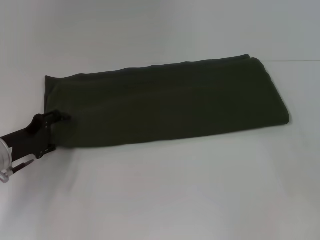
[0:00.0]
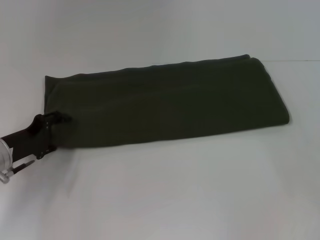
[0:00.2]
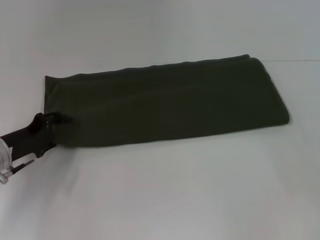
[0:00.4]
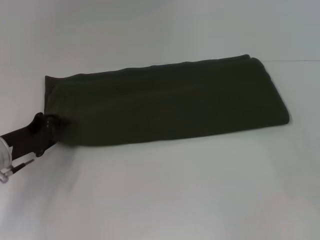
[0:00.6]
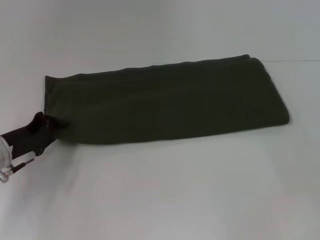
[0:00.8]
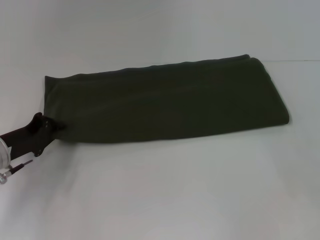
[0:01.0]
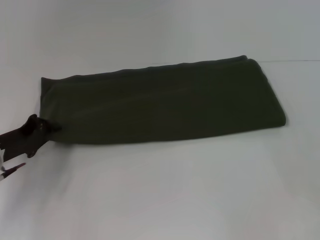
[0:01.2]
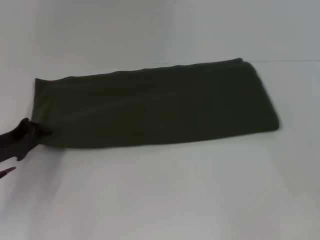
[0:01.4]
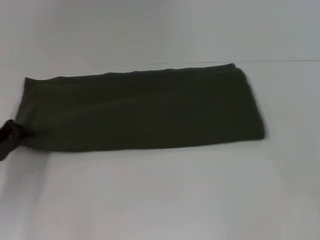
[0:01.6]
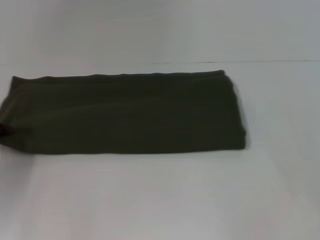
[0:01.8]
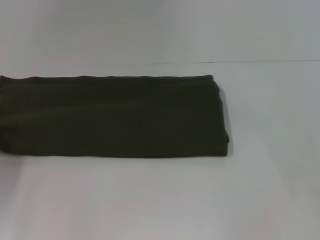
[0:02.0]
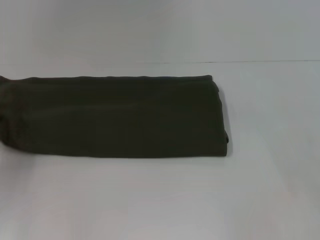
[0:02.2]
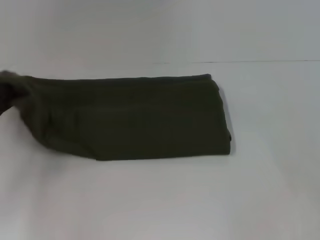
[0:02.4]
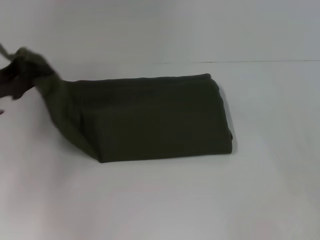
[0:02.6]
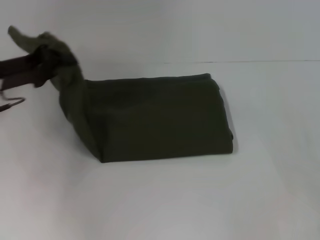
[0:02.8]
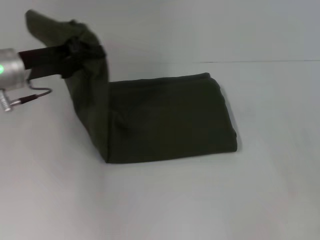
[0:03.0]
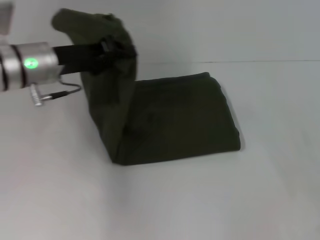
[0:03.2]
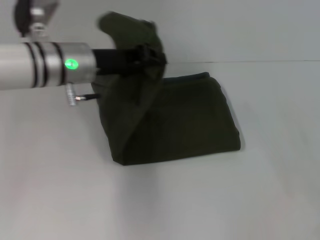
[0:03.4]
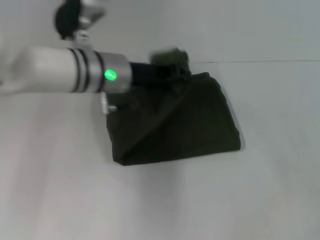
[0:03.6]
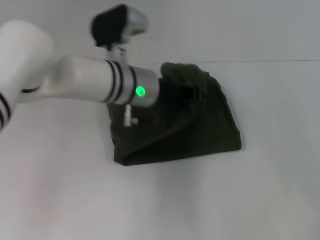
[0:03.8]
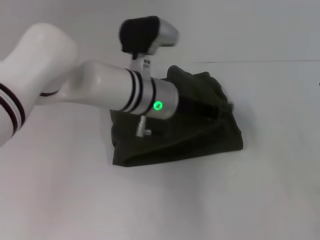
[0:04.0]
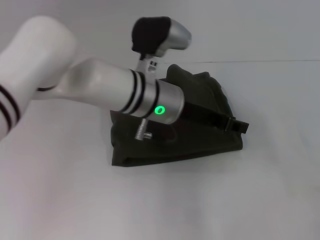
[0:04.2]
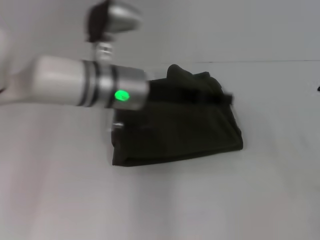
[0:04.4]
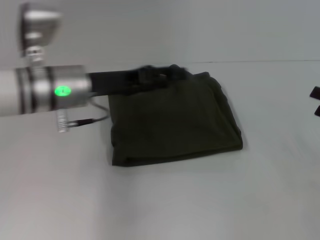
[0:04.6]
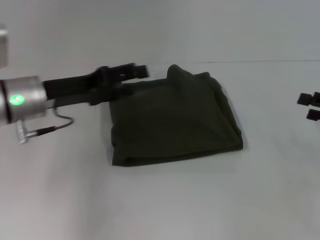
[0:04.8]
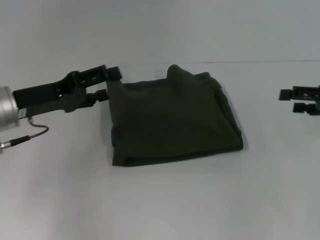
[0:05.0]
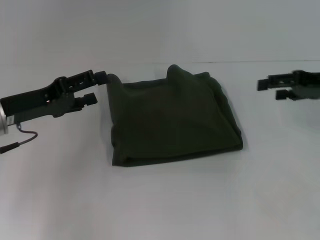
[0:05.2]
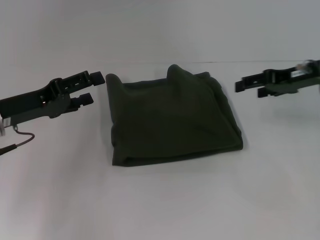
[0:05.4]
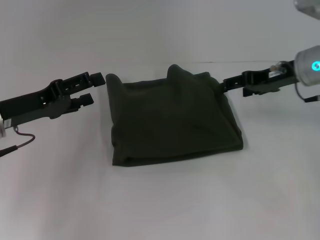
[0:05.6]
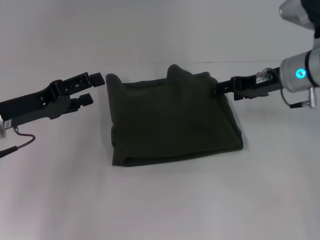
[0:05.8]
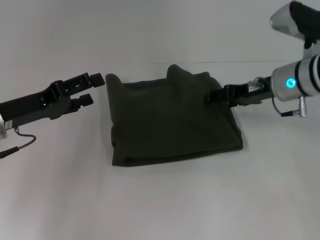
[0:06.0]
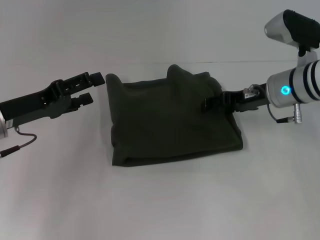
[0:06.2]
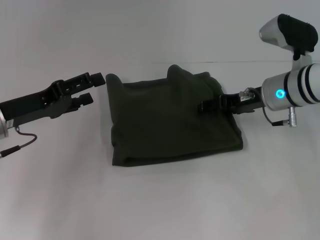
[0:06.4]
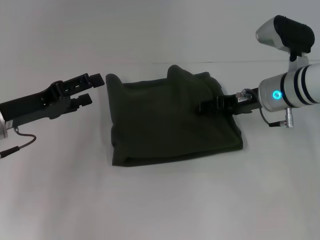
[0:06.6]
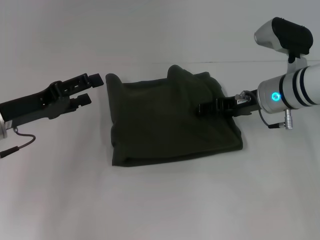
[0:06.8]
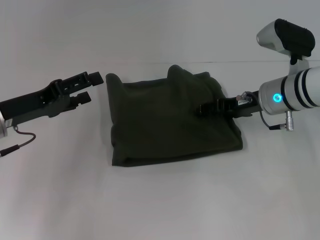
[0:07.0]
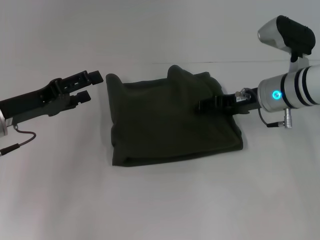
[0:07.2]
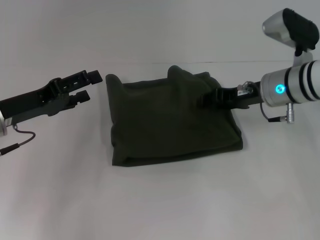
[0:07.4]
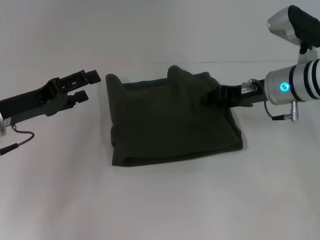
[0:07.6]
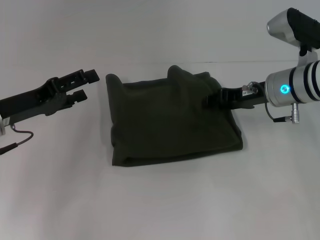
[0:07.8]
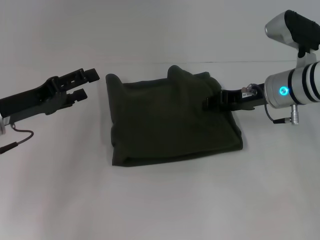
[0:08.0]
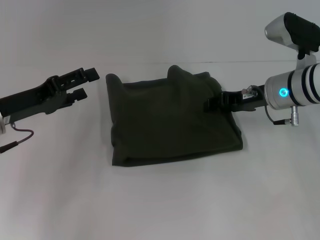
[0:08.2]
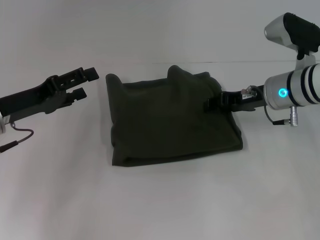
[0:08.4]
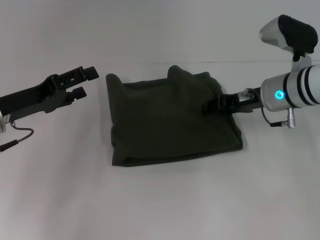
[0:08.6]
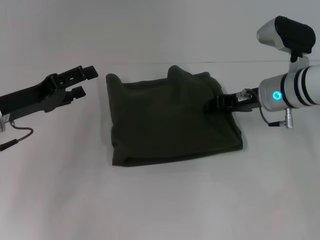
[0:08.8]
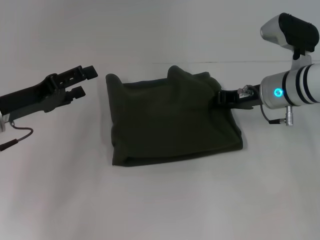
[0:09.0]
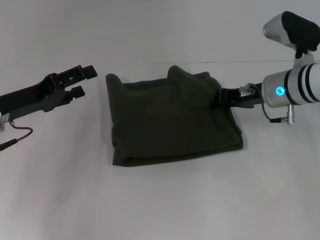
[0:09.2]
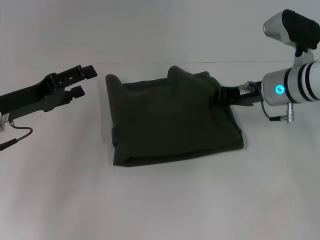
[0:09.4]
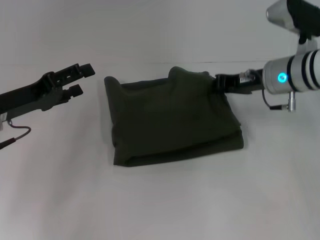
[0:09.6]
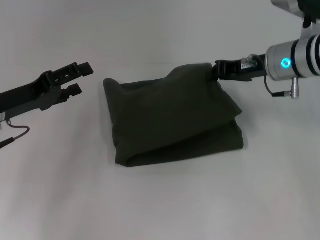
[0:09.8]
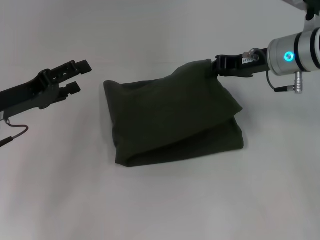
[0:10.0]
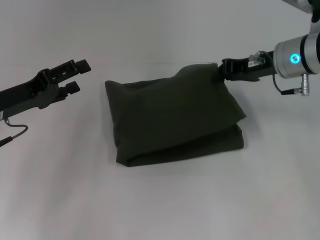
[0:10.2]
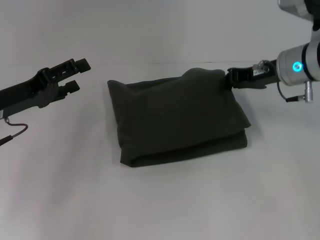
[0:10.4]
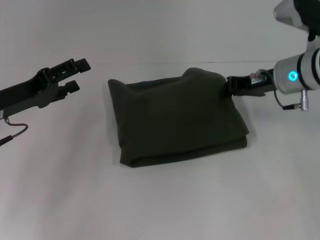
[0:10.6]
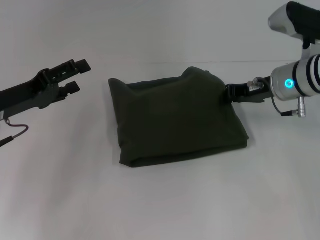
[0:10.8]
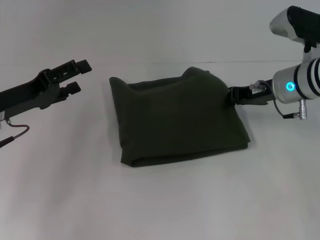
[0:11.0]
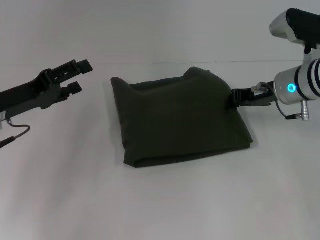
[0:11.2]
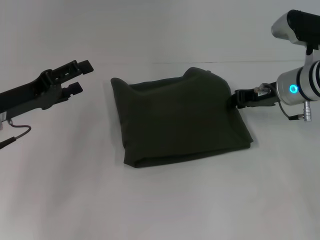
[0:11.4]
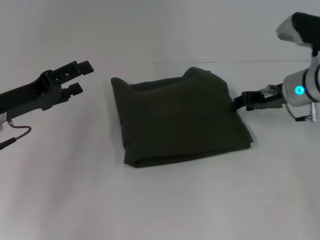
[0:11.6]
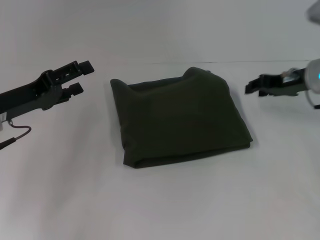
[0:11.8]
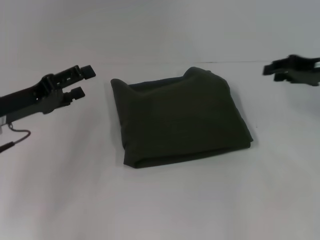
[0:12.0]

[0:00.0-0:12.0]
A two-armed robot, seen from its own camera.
Step, 0:00.0 to 0:04.4: Fold the clothes with your left hand.
0:00.0 to 0:01.6: The left gripper moves about 5 cm, and closes up.
0:01.6 to 0:03.0: The left gripper is displaced upward, to the right and forward by some 15 cm.
0:03.0 to 0:04.4: The left gripper is displaced to the right by approximately 15 cm, and opens.
0:04.4 to 0:06.0: The right gripper is displaced to the left and forward by some 20 cm; the left gripper moves to the left, roughly 20 cm, and opens up.
0:06.0 to 0:07.6: The right gripper closes.
0:07.6 to 0:10.4: The grippers make only small movements.
0:10.4 to 0:12.0: The right gripper moves to the right, about 10 cm.

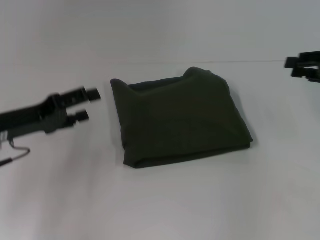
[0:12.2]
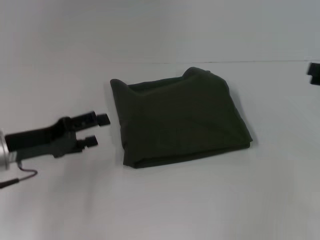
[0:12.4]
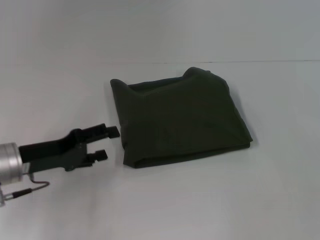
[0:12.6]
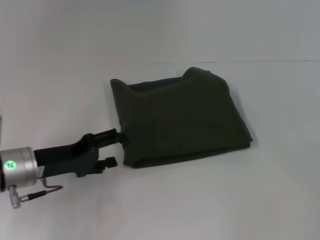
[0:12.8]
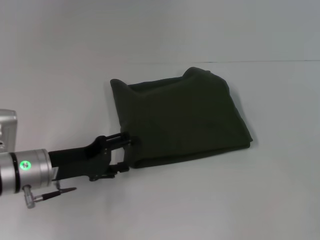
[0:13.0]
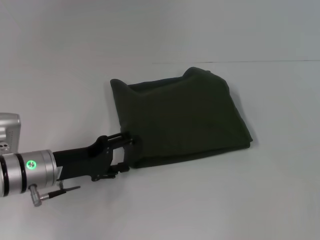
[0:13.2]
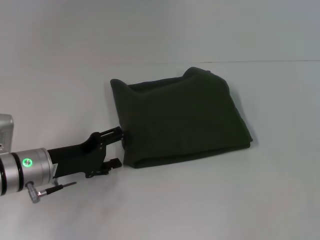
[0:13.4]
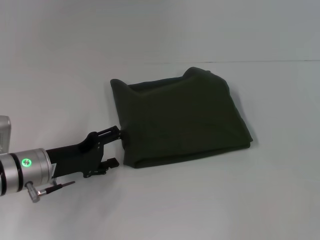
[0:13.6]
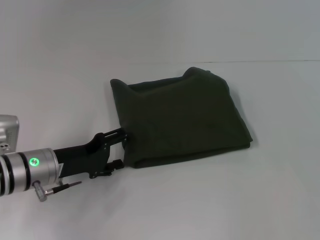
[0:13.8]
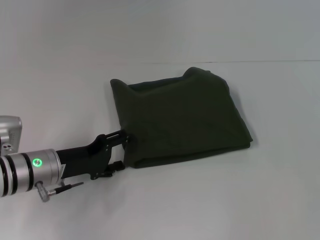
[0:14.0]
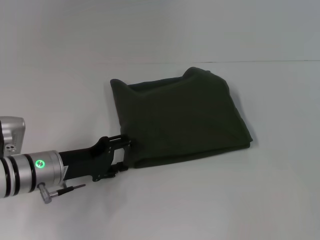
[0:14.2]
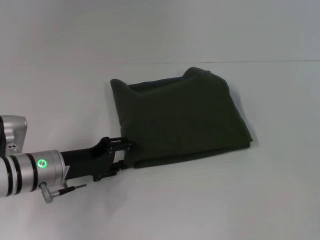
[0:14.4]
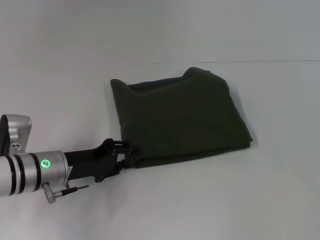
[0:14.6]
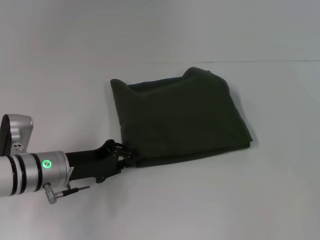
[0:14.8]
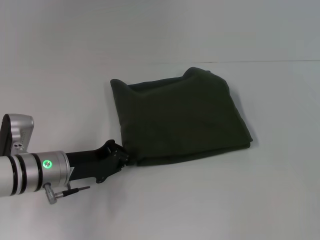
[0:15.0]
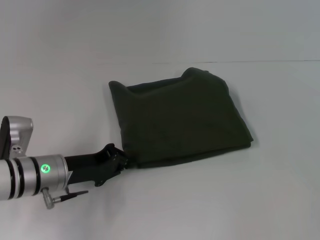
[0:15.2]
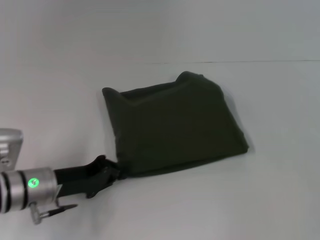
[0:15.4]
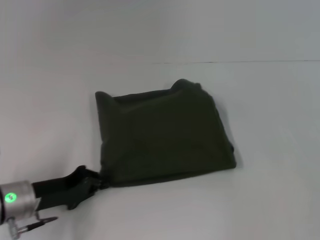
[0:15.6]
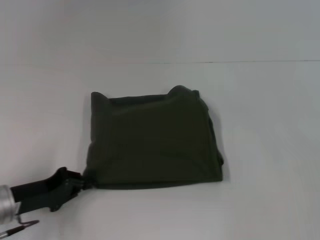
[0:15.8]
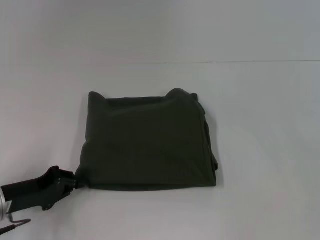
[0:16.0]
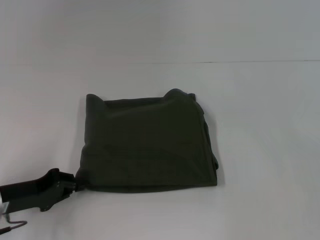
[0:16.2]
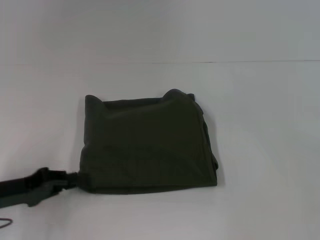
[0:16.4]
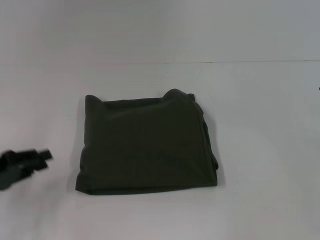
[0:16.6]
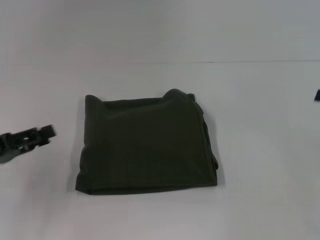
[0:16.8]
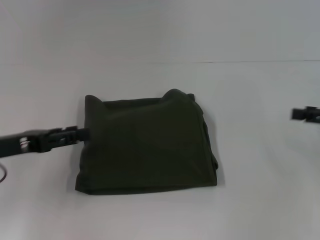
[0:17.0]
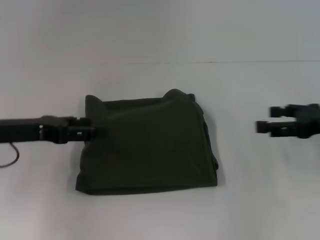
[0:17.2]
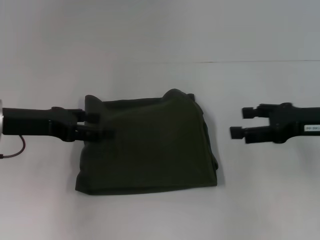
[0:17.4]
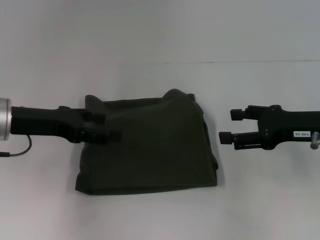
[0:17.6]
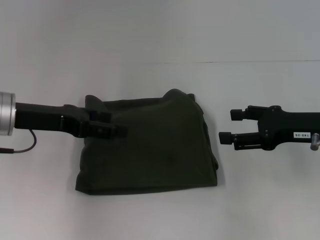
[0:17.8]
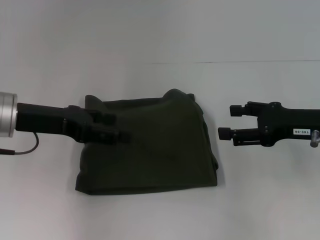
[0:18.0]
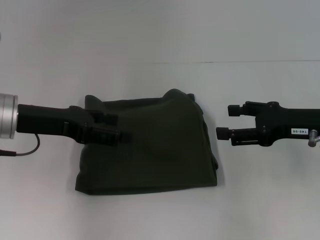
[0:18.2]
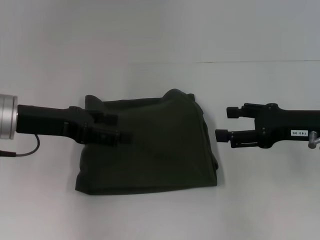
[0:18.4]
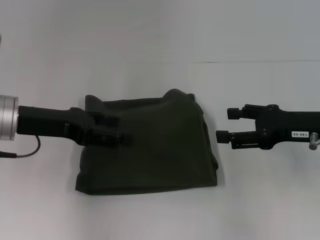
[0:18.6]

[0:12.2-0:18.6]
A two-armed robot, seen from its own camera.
0:12.2 to 0:13.8: The left gripper travels downward and to the right by approximately 10 cm, while the right gripper travels backward and to the right by roughly 10 cm.
0:13.8 to 0:15.4: The left gripper closes its fingers.
0:15.4 to 0:17.0: The right gripper shifts by about 5 cm, and opens. The left gripper heads upward and to the left, covering approximately 10 cm, and opens up.
0:17.0 to 0:18.6: The right gripper goes about 10 cm to the left. The left gripper goes about 5 cm to the right, and opens up.

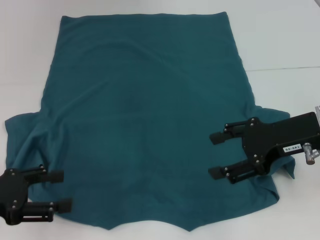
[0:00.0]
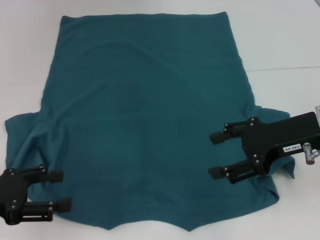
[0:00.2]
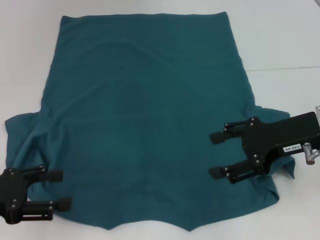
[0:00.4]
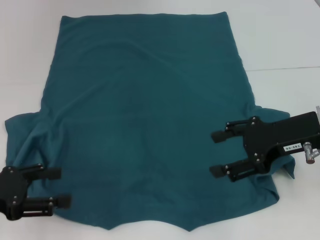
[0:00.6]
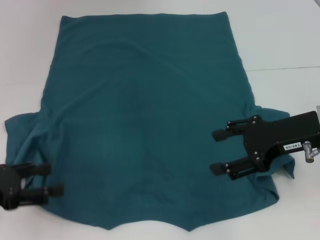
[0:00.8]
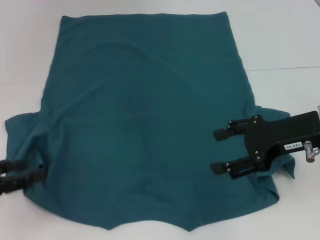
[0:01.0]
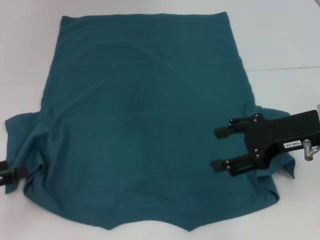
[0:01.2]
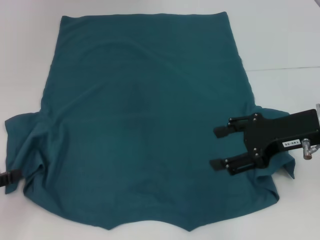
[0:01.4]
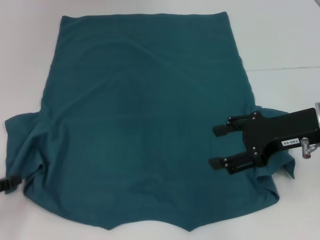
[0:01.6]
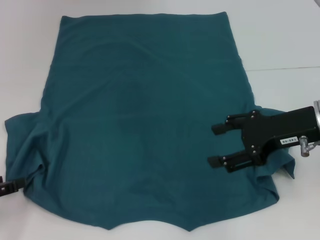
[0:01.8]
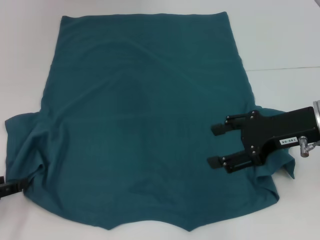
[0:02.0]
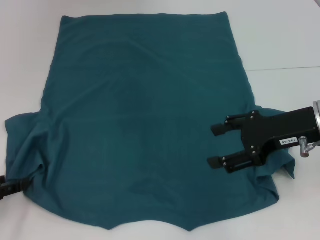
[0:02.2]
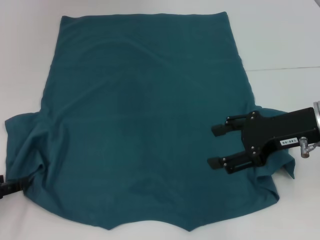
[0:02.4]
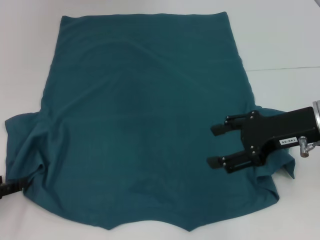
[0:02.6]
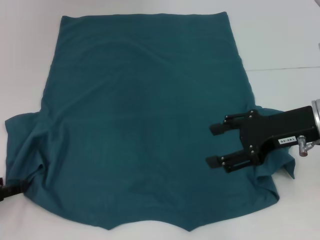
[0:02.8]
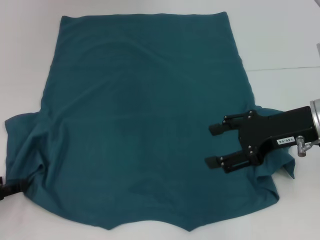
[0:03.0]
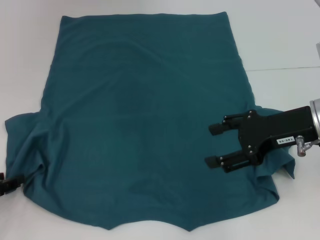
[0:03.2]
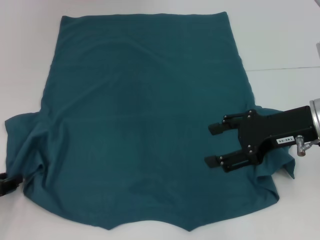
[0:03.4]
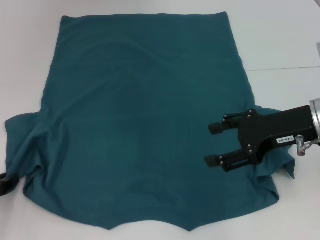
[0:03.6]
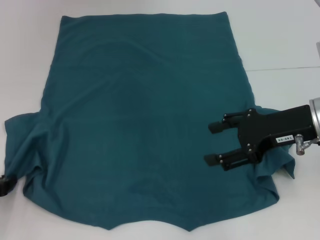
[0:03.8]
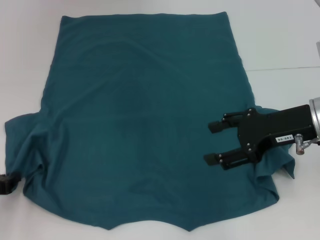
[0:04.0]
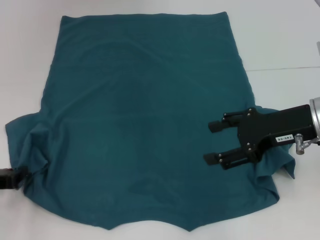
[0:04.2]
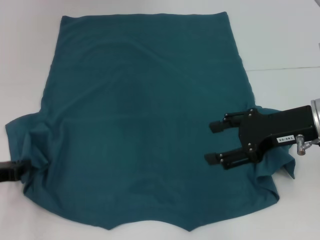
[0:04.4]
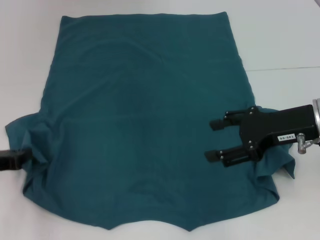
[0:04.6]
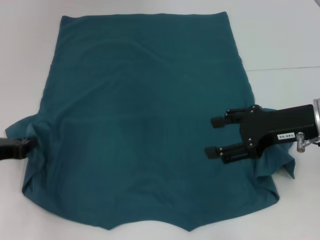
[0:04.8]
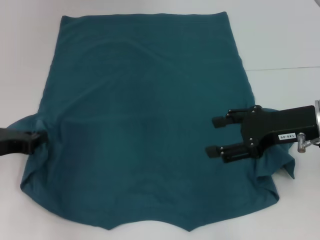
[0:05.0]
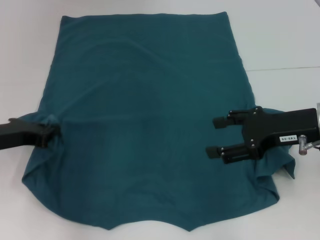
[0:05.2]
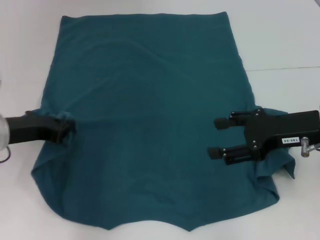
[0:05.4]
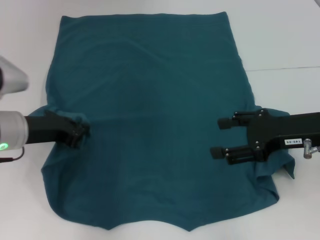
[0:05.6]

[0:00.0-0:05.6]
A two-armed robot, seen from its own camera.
0:00.0 to 0:01.4: The left gripper heads to the left, covering some 5 cm.
0:01.4 to 0:02.8: The grippers move only a little.
0:02.8 to 0:04.2: The left gripper closes.
0:04.2 to 0:05.6: The left gripper heads to the right, forward and upward, covering roughly 15 cm.
